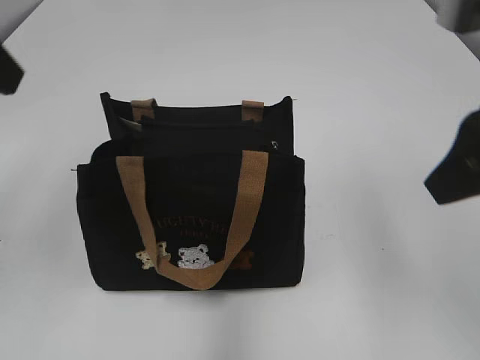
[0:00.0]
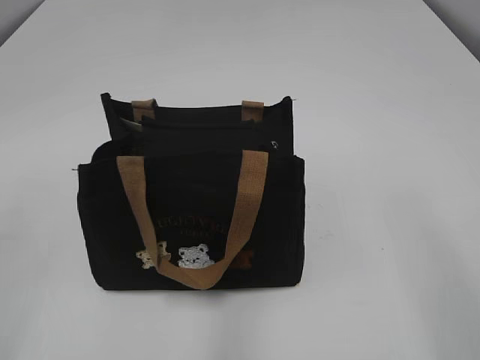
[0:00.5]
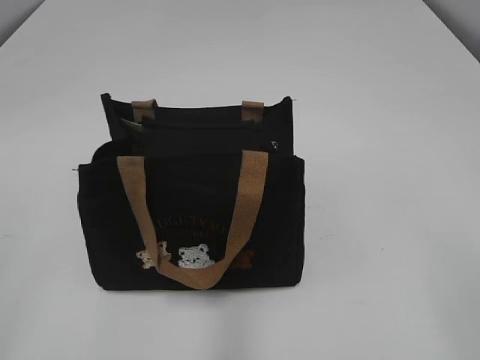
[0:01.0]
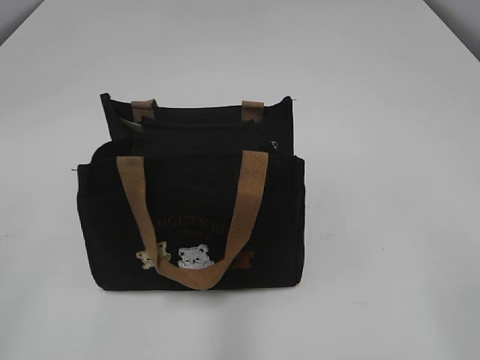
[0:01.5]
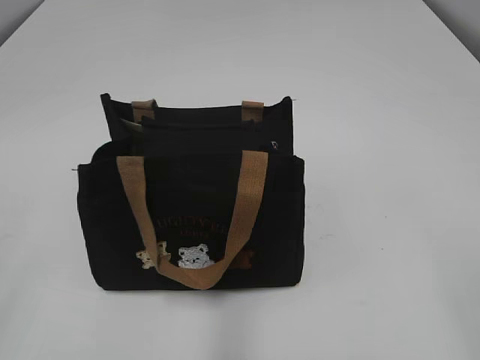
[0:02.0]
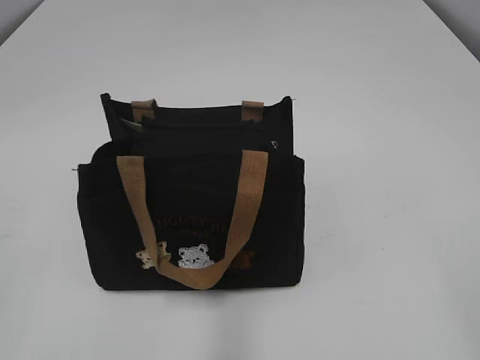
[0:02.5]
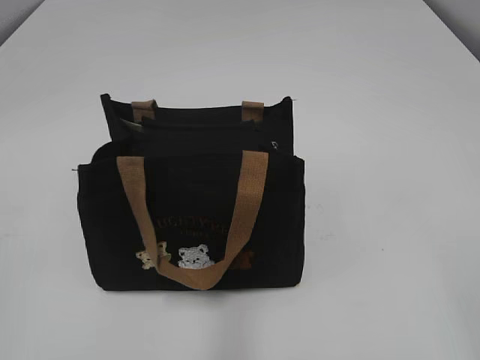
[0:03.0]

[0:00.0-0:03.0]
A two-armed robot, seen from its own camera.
0:00.0 to 0:01.5: The left gripper moves backward and downward, about 20 cm. The right gripper goes about 20 cm backward.

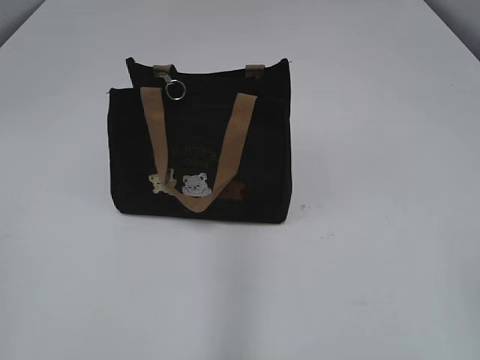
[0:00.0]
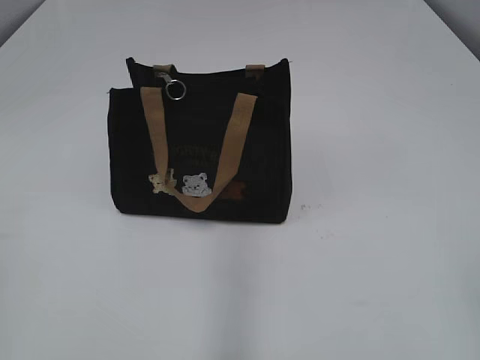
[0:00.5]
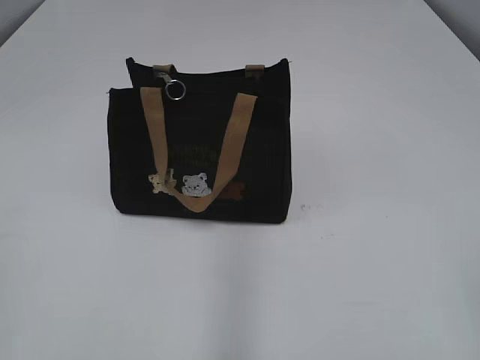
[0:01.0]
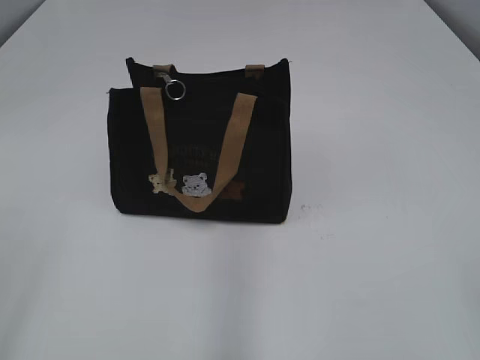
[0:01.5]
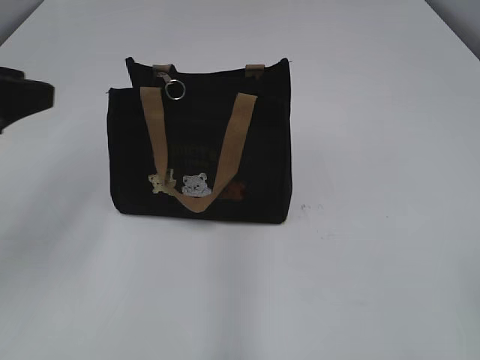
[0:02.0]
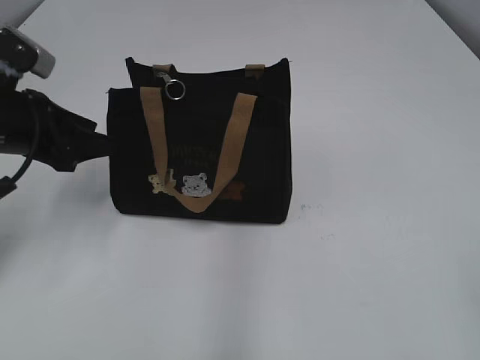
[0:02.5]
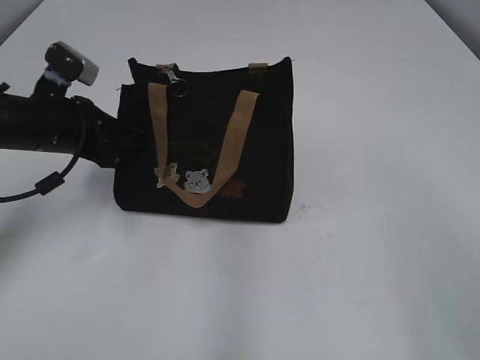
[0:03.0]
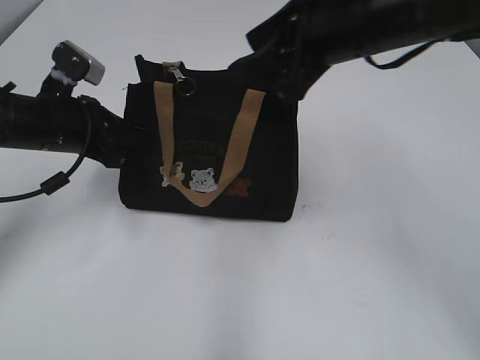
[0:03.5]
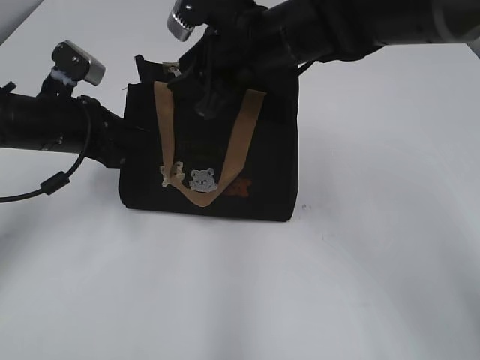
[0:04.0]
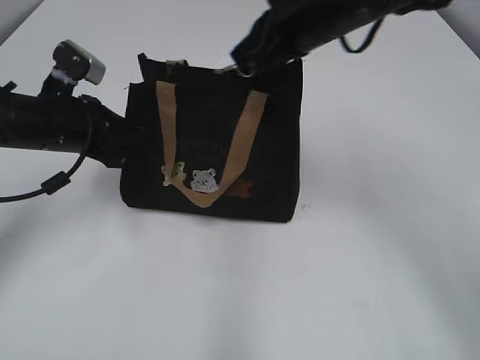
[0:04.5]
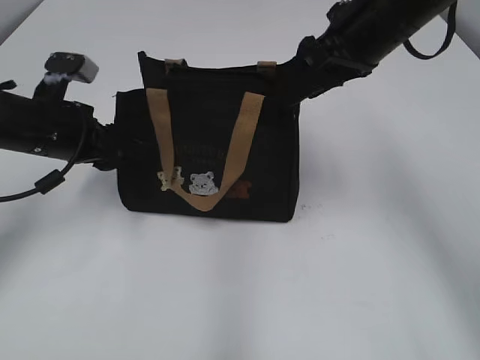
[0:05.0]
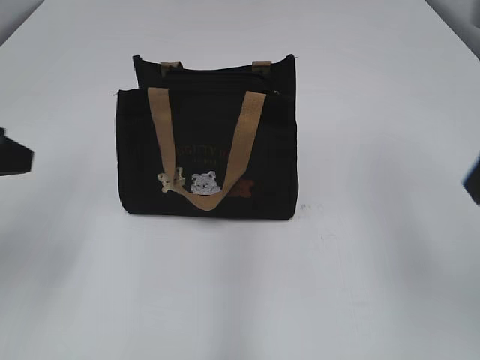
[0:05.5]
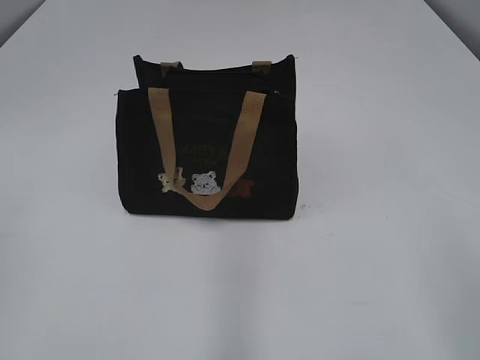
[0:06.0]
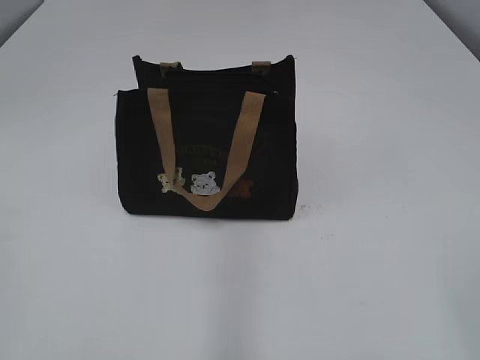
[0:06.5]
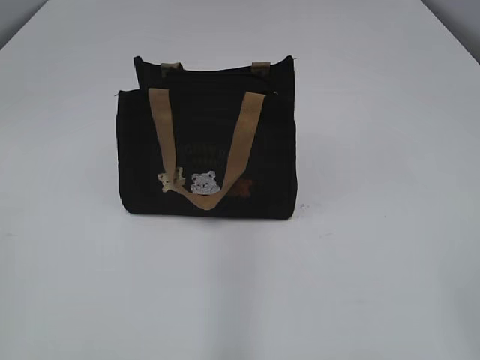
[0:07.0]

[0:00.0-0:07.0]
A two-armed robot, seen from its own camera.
Step, 0:00.0 to 0:04.5: Pull open the zipper with your right hand.
0:02.0 to 0:03.5: The right gripper heads forward and to the left, covering some 35 cm; the left gripper shifts roughly 20 cm forward and downward, and closes up.
0:03.5 to 0:05.0: The left gripper opens up; the right gripper moves forward, about 10 cm, reaches some 10 cm to the left, then returns, and closes, then reopens.
0:05.0 to 0:07.0: Both grippers move backward, roughly 35 cm.

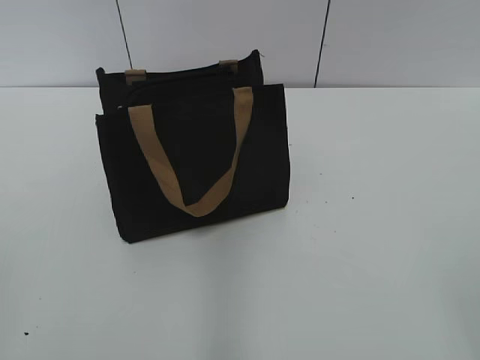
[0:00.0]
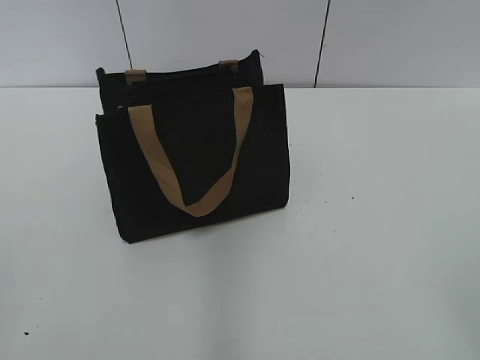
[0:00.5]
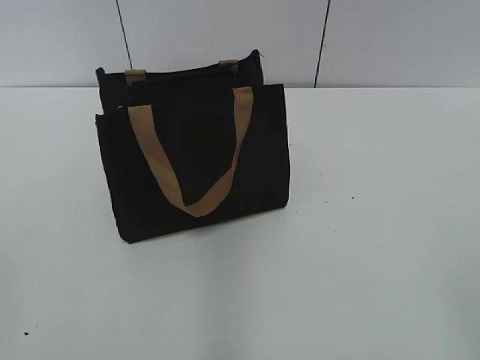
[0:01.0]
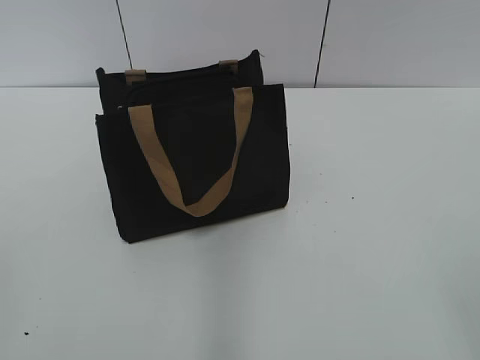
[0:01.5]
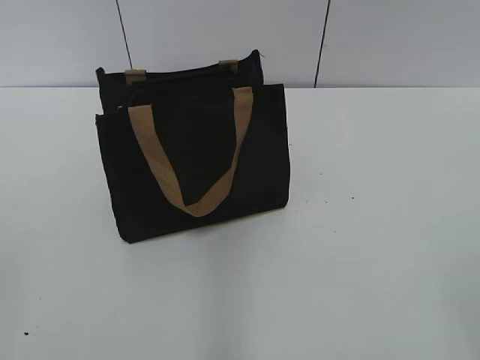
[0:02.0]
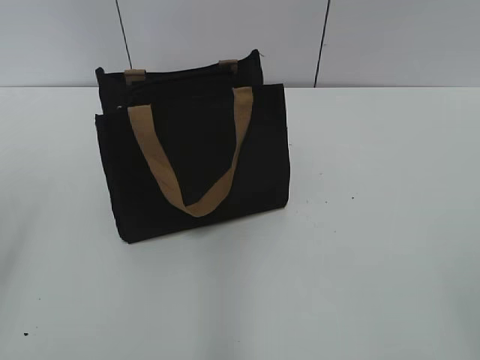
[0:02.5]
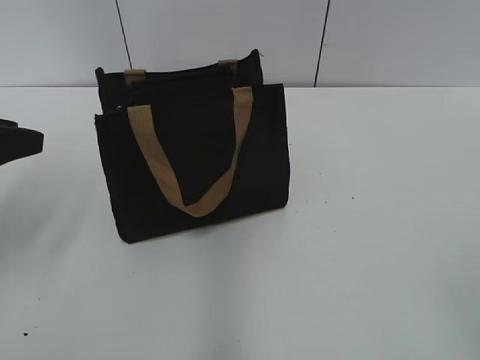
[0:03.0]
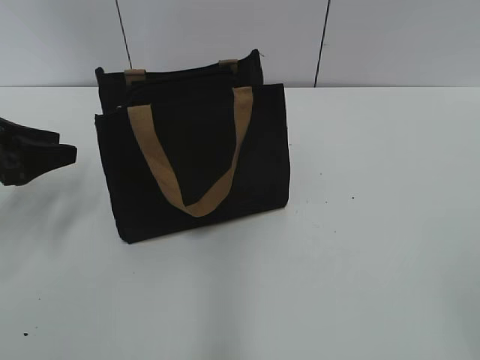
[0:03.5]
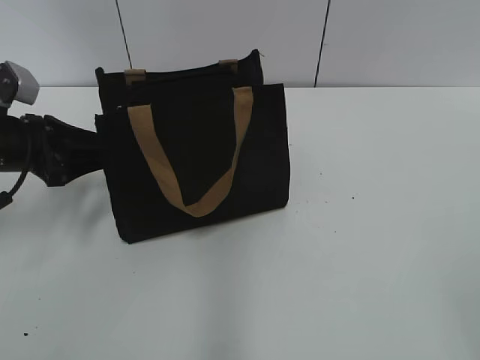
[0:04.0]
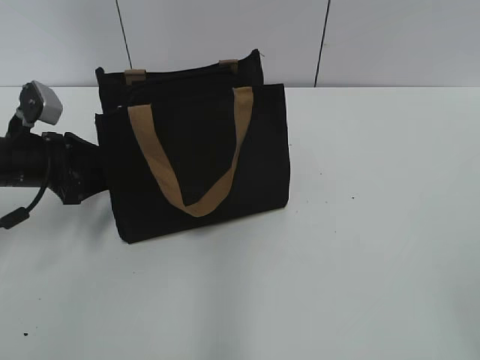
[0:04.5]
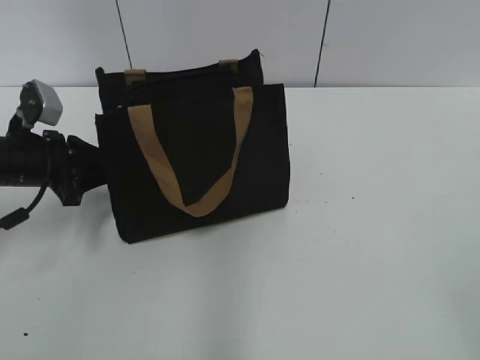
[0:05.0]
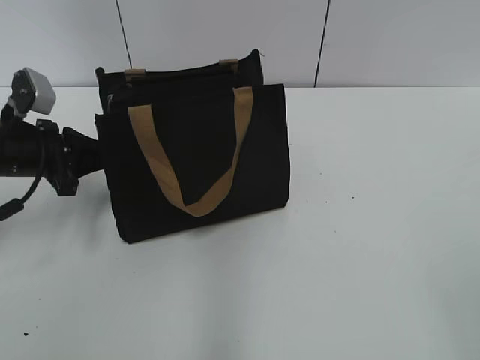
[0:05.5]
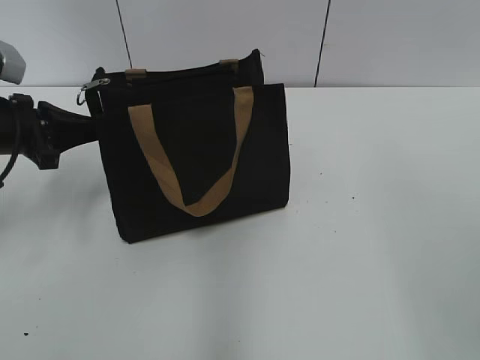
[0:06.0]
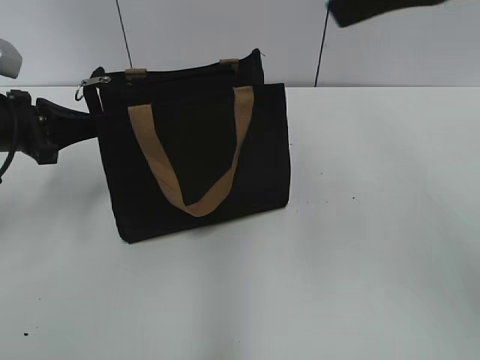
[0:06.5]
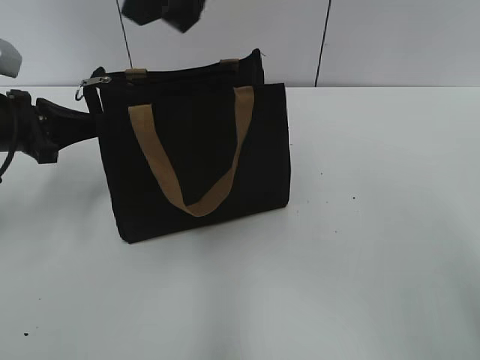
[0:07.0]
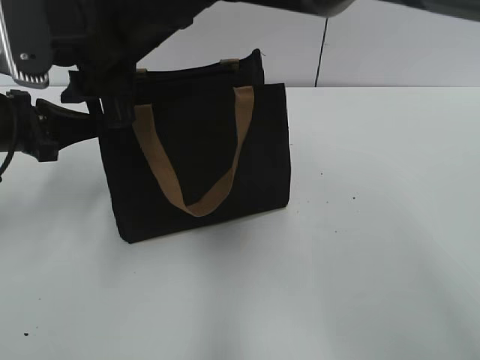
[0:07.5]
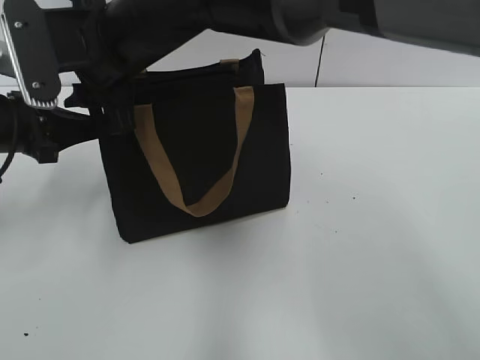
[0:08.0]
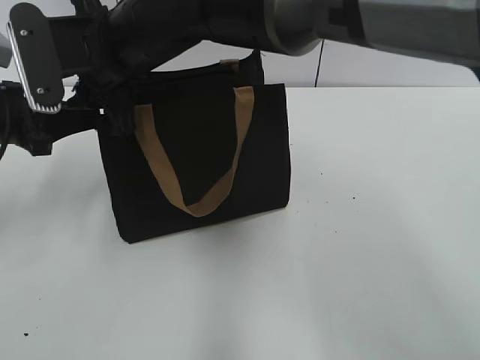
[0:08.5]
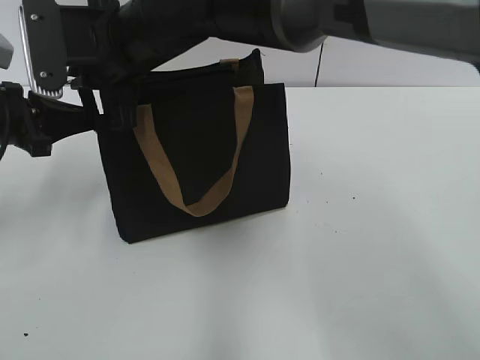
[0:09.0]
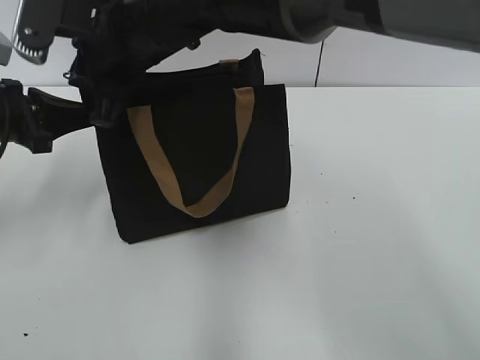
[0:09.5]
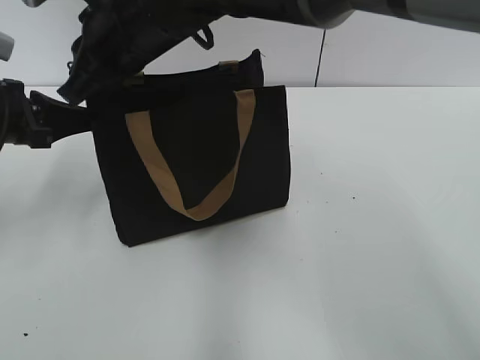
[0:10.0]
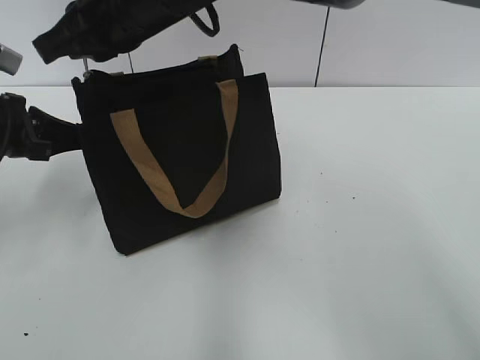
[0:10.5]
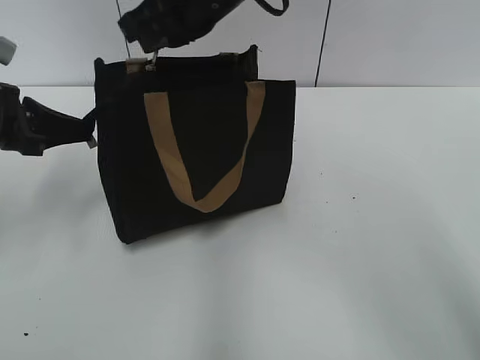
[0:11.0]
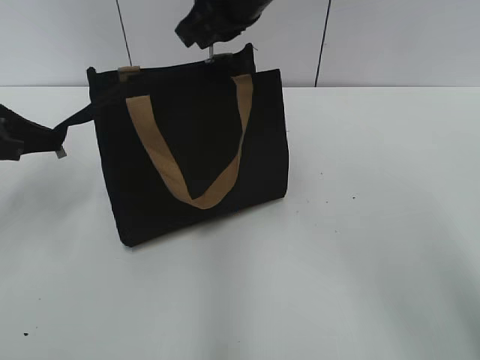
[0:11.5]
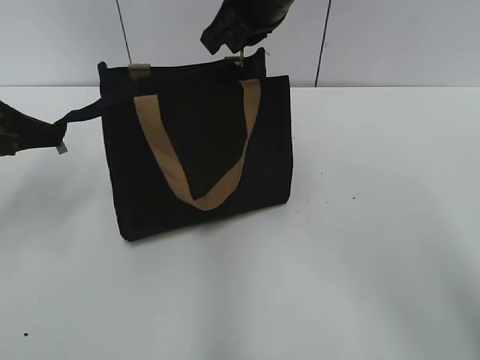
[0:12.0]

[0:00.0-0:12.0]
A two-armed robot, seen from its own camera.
Step, 0:00.0 to 0:12.0: Zip up the bag with your right hand.
0:02.0 to 0:04.0: The left gripper travels forward and downward by some 35 cm.
0:04.0 to 0:06.0: The left gripper closes.
0:06.0 to 0:08.0: The right gripper is displaced to the left and forward by roughly 40 cm.
0:08.0 to 0:10.0: The right gripper closes up.
0:10.0 to 0:12.0: The right gripper moves to the right, roughly 10 cm.

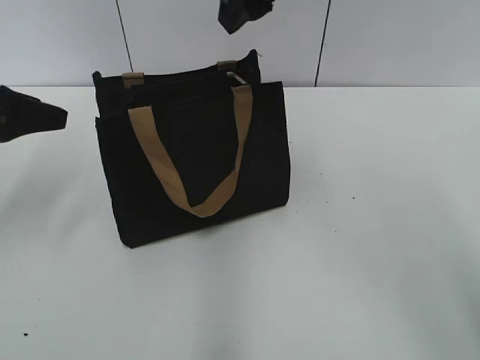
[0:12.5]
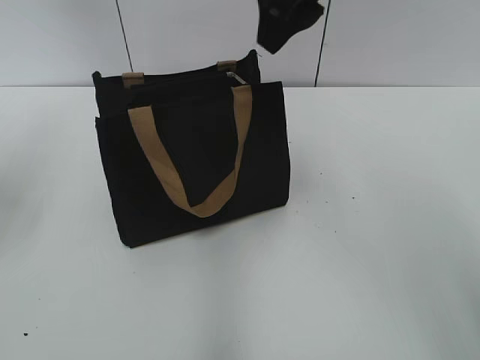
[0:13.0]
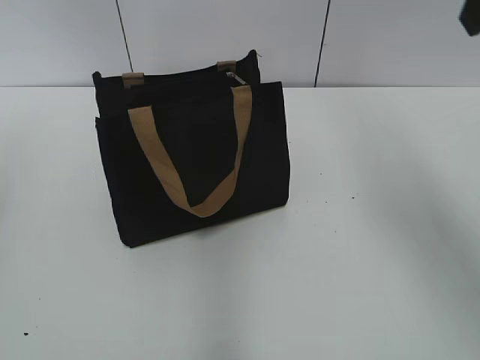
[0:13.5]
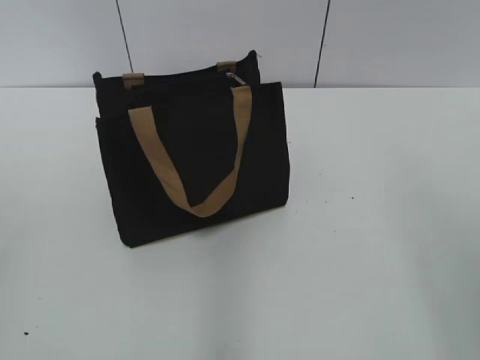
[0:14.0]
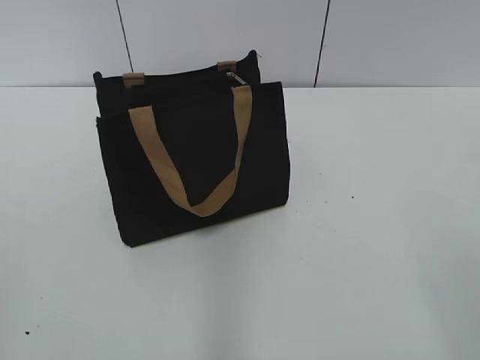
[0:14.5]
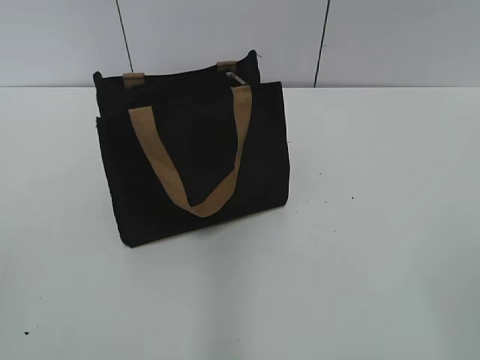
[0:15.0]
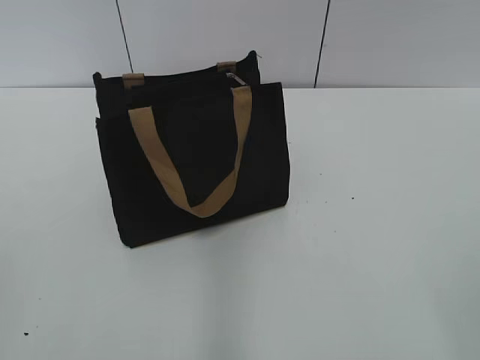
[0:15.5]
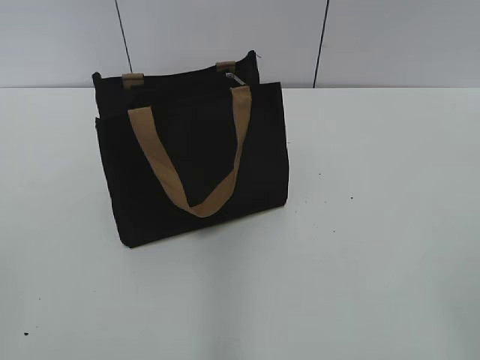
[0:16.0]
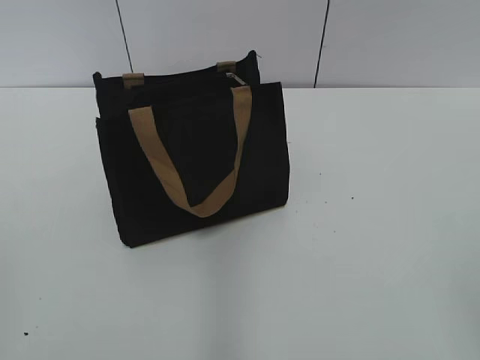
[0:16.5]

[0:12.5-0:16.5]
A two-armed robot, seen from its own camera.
0:12.5 to 0:14.5: The right gripper shifts approximately 40 cm backward and to the right, while the left gripper travels backward by approximately 30 cm.
